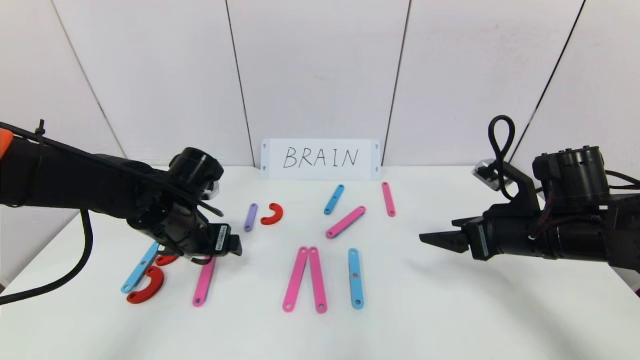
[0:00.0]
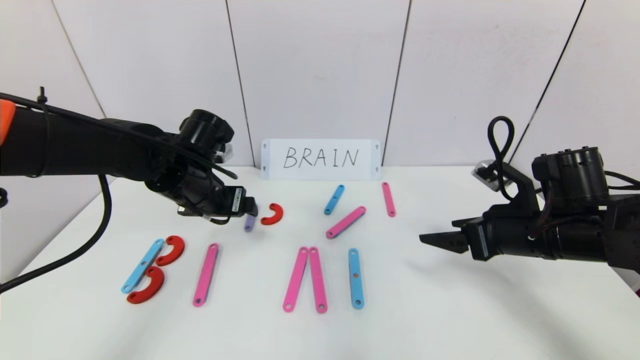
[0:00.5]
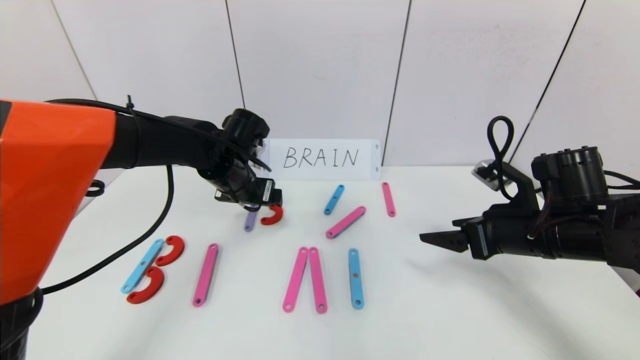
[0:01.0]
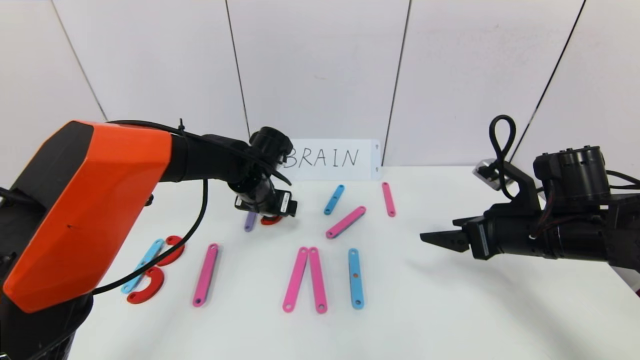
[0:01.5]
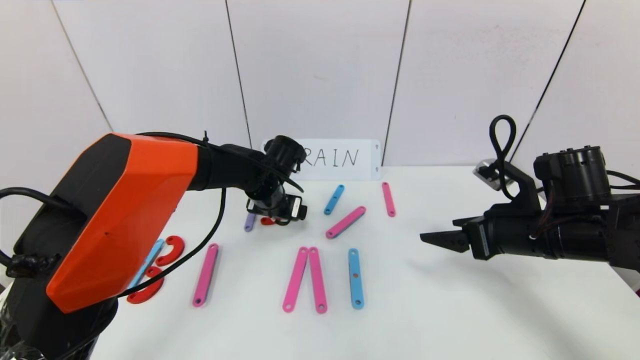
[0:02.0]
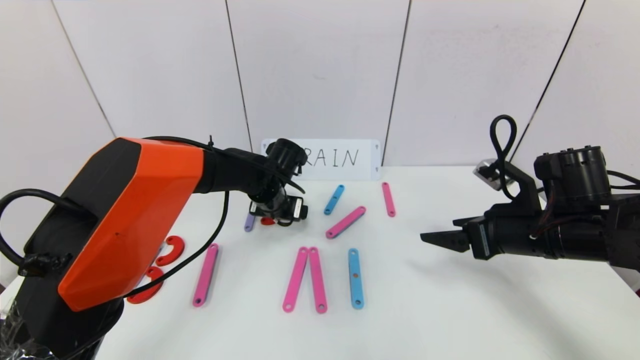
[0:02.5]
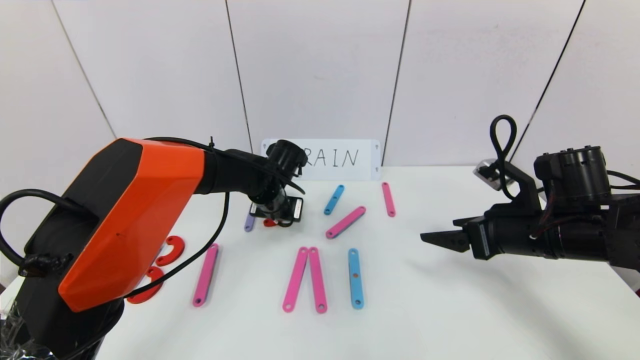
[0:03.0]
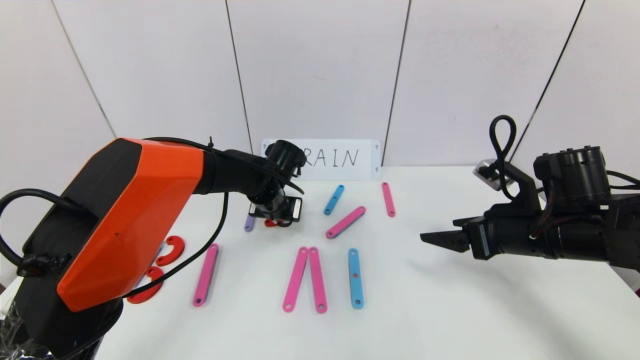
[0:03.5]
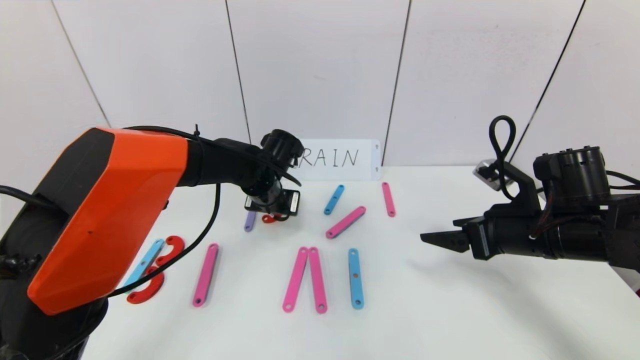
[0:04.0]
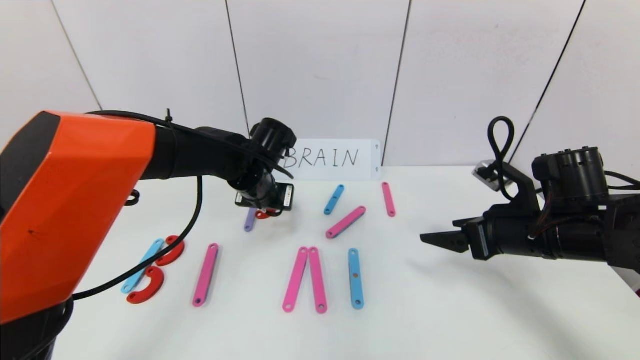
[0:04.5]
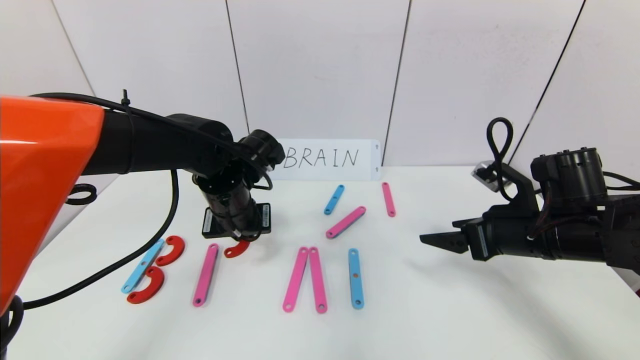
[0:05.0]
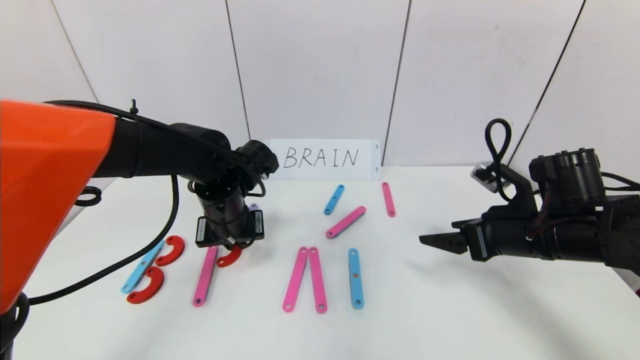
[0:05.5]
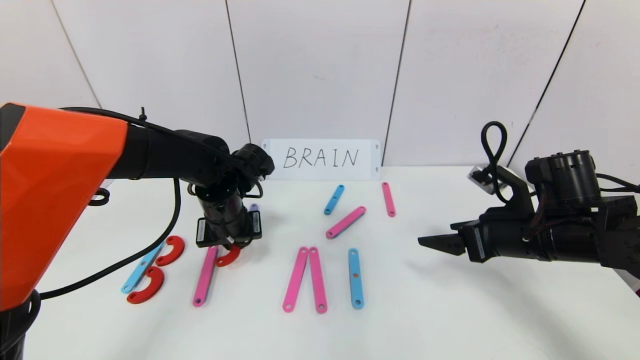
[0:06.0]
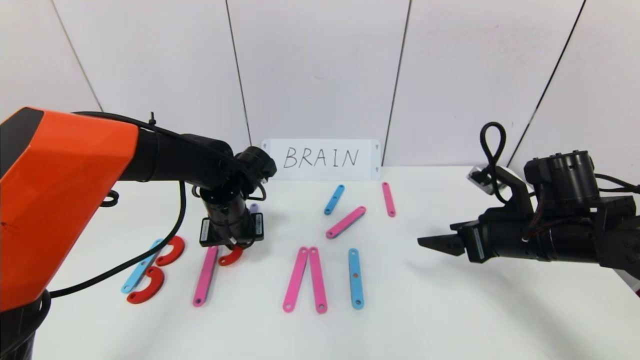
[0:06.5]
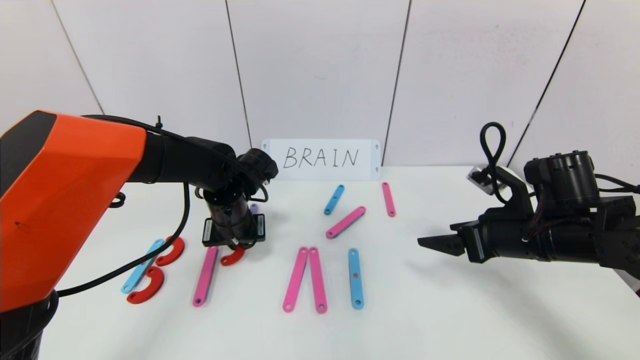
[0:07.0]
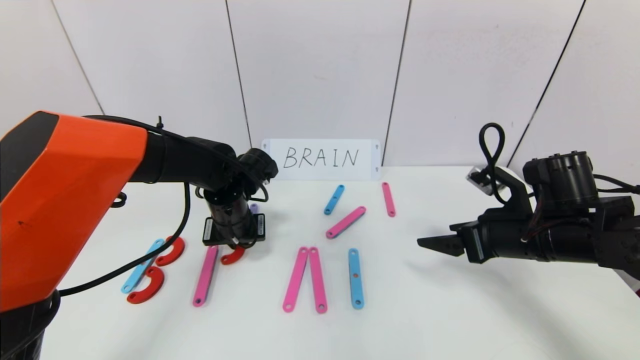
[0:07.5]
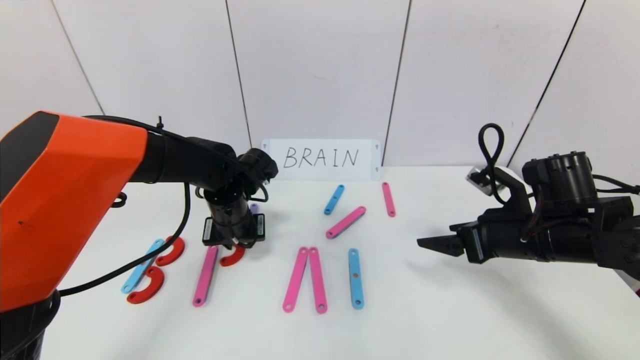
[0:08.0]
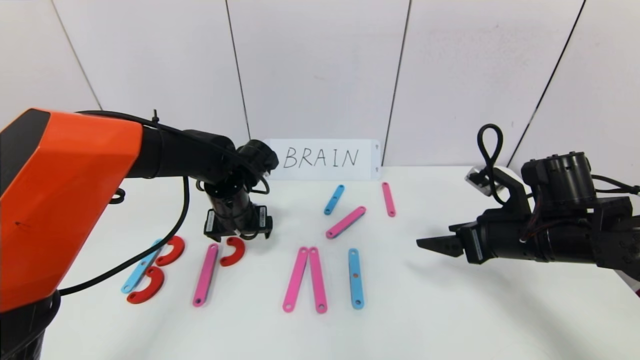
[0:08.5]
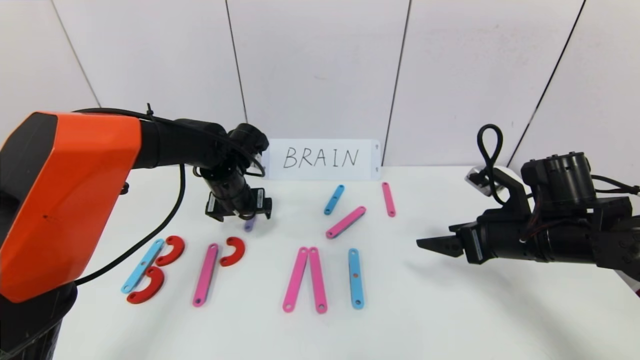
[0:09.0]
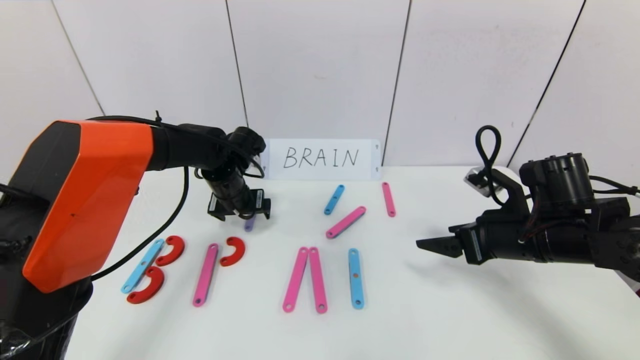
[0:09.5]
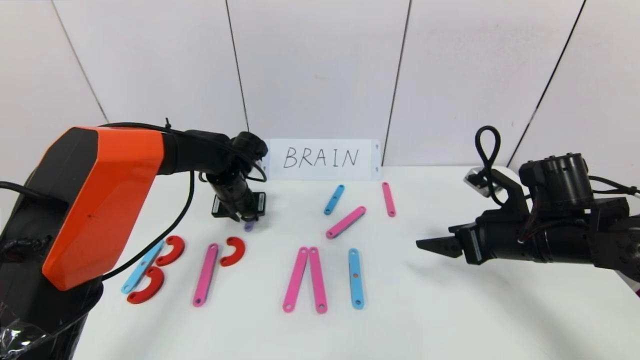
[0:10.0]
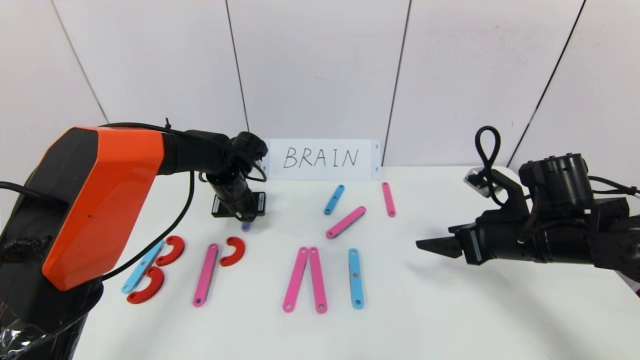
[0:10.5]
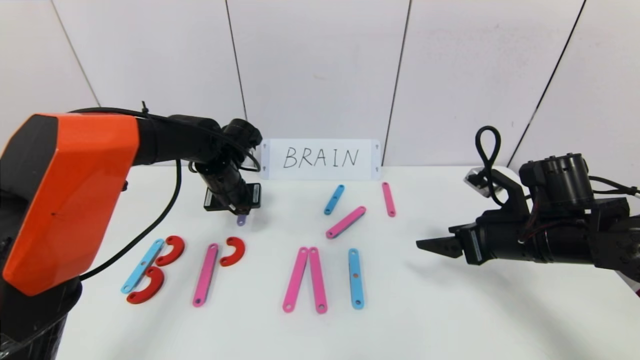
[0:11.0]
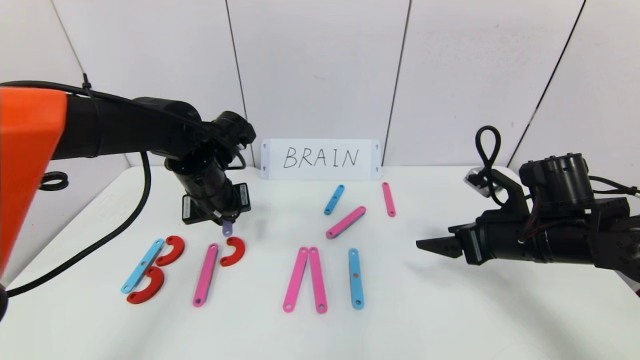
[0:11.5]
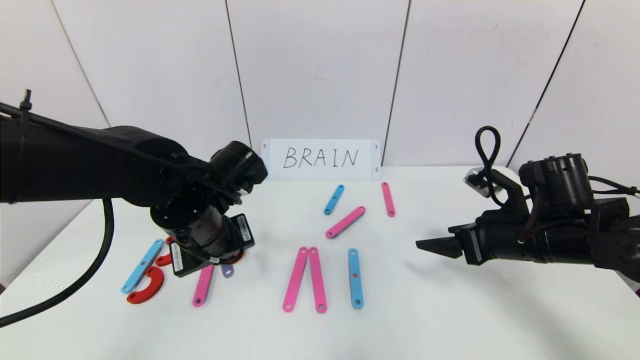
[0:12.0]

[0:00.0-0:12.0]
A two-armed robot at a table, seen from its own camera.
Task of the whole recording: rearrange the word baai as brain.
0:00.0 to 0:02.0: The left gripper shifts roughly 15 cm to the right and forward.
0:02.0 to 0:04.0: The left gripper closes up.
0:04.0 to 0:06.0: The left gripper is displaced backward and to the left by approximately 10 cm.
0:06.0 to 0:08.0: The grippers make only small movements.
0:08.0 to 0:10.0: The left gripper moves forward, some 5 cm, and opens, then closes once more.
0:10.0 to 0:12.0: The left gripper is displaced backward by approximately 15 cm.

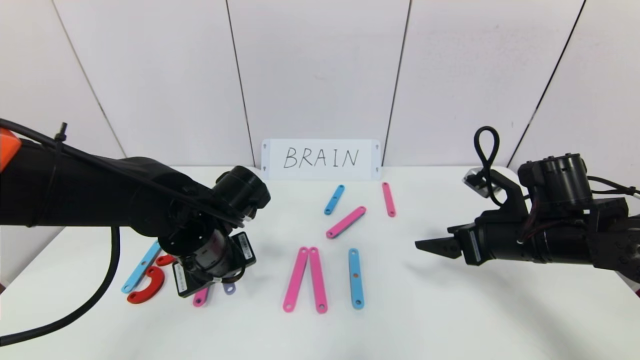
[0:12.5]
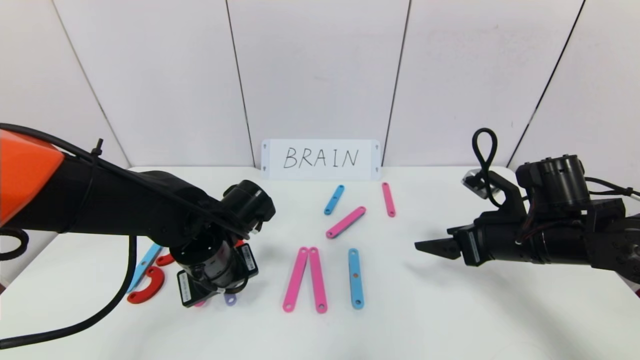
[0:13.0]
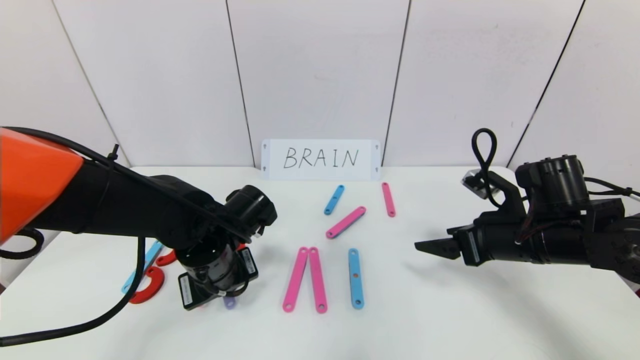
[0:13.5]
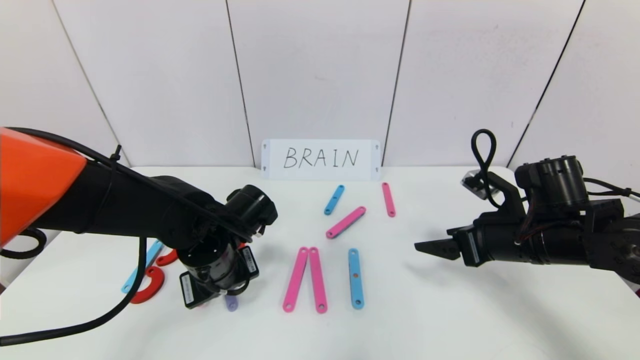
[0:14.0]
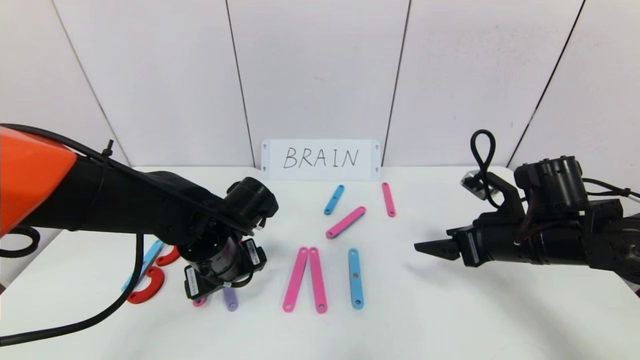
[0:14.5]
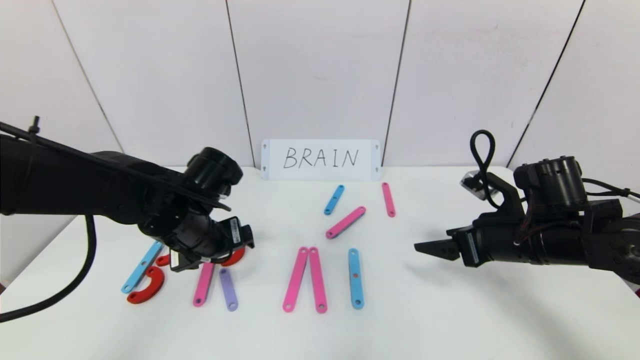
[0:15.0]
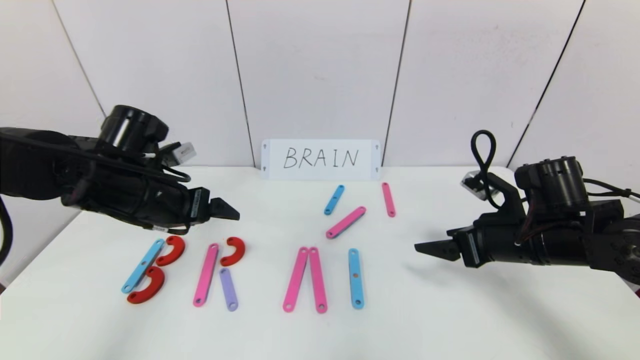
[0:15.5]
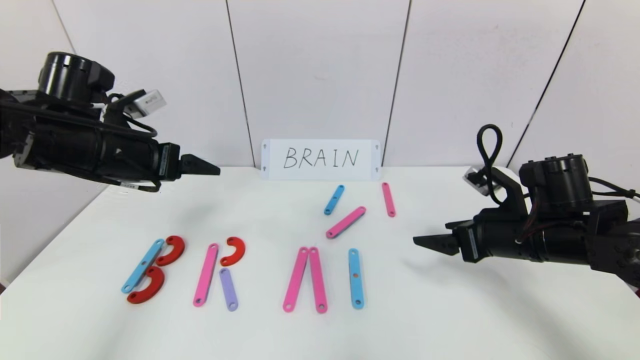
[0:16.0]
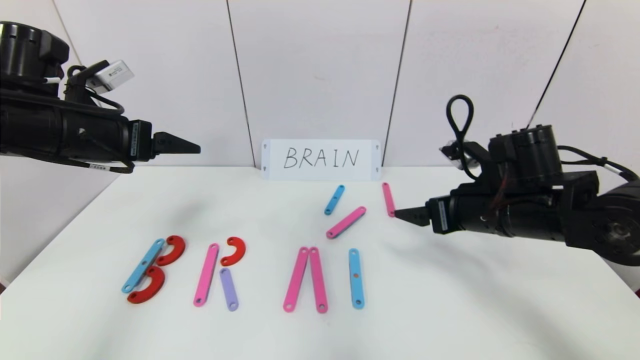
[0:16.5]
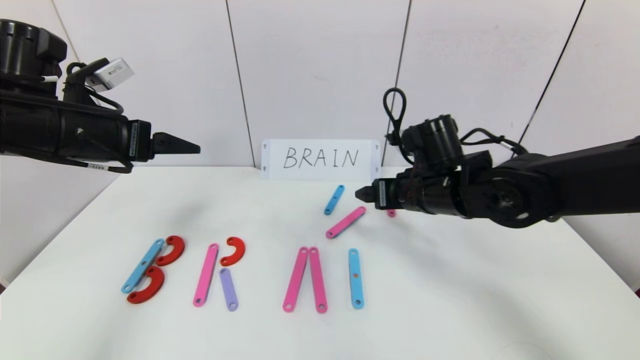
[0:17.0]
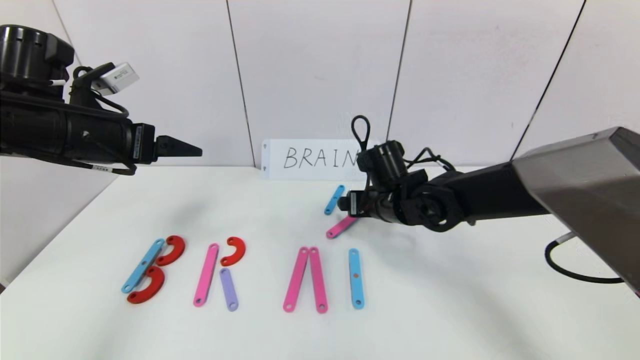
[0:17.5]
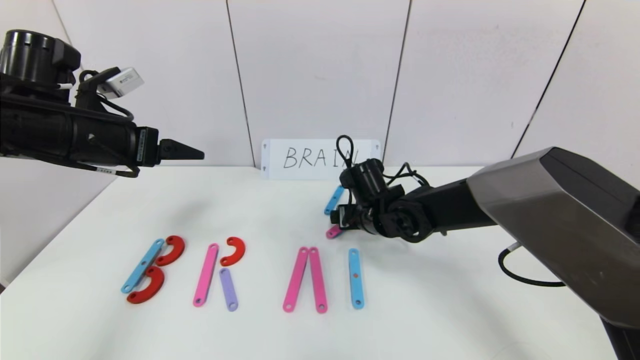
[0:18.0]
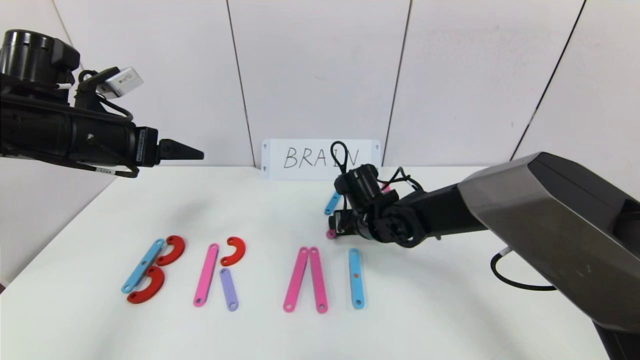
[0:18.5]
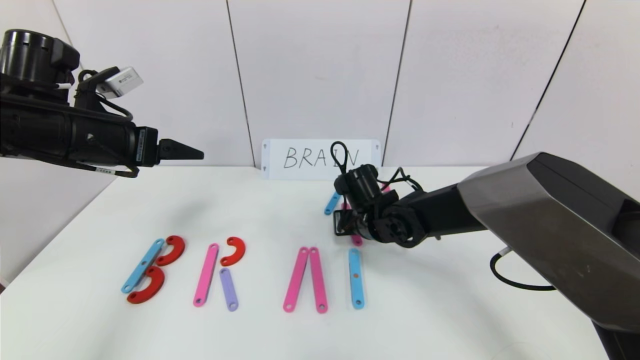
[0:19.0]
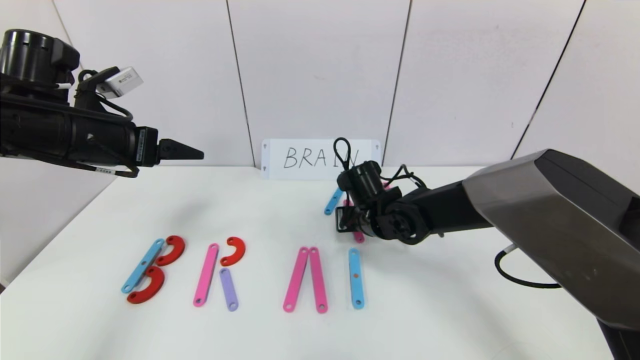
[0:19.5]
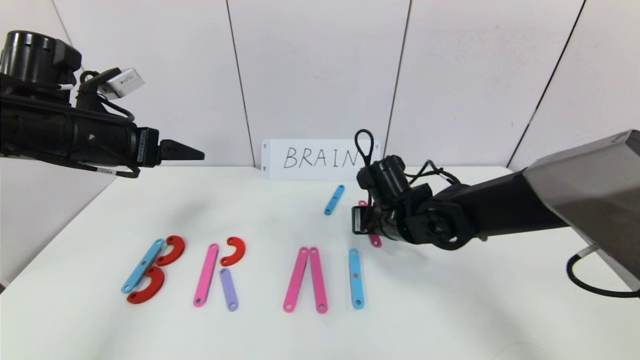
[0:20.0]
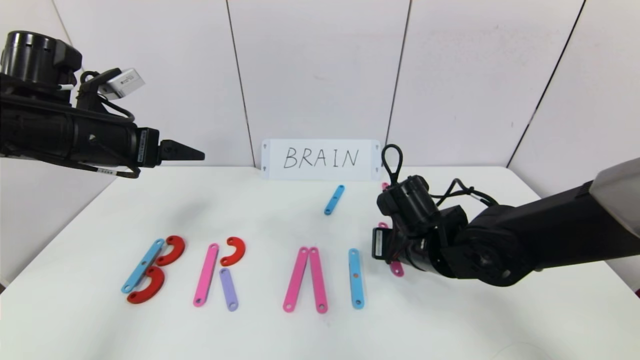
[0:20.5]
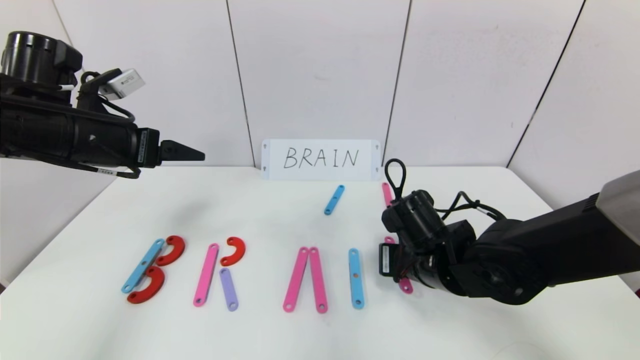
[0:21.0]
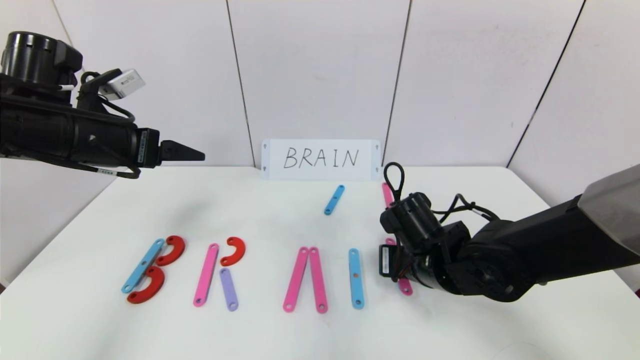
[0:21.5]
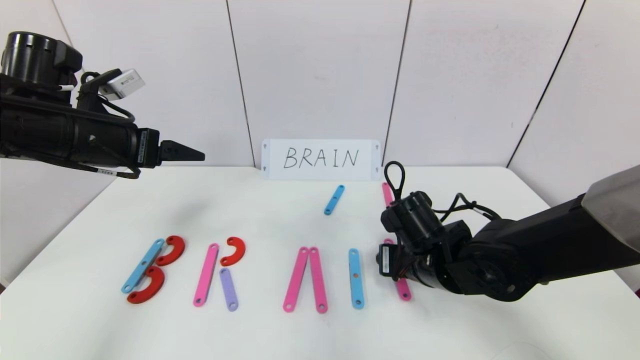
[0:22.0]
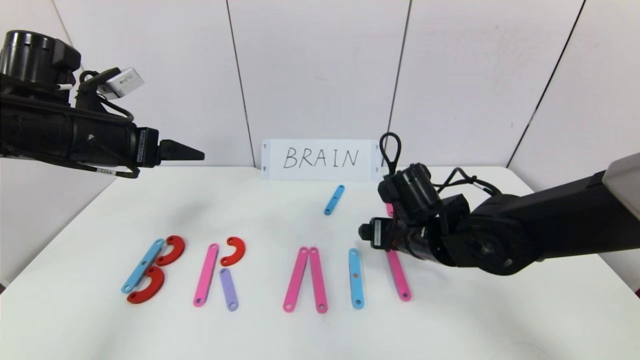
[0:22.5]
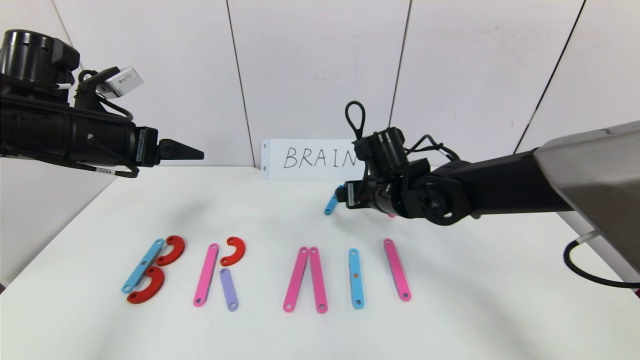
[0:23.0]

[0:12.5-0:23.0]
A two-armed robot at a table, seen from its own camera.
Task of the whole recording: rearrange the word baai as brain.
Step, 0:12.5 to 0:14.5: Place the character R between first character B and third character A.
0:12.5 to 0:14.5: The left gripper opens.
0:14.5 to 0:16.5: The left gripper shifts roughly 20 cm upward and to the left, while the right gripper moves some 5 cm.
0:16.5 to 0:19.0: The right gripper is displaced to the left, downward and forward by some 20 cm, and closes its fingers.
0:19.0 to 0:21.0: The right gripper heads backward and to the right, covering approximately 10 cm.
0:21.0 to 0:23.0: The right gripper shifts roughly 10 cm forward and upward, and opens up.
